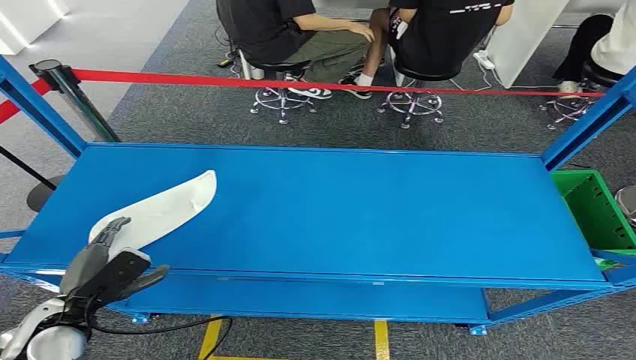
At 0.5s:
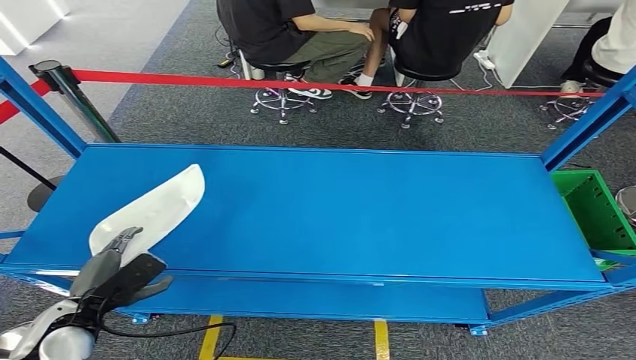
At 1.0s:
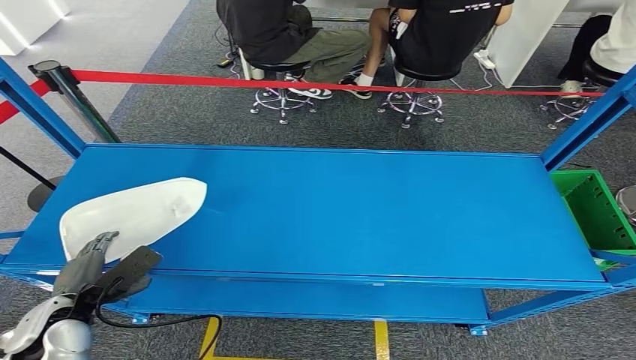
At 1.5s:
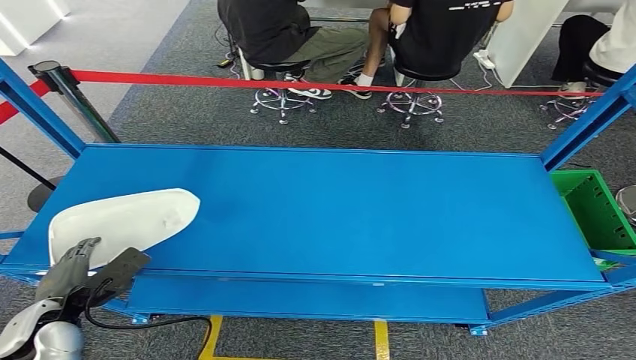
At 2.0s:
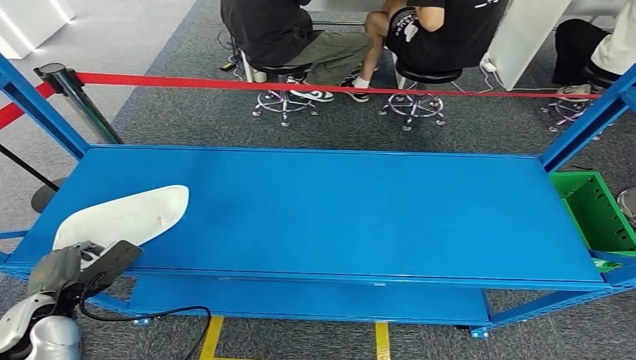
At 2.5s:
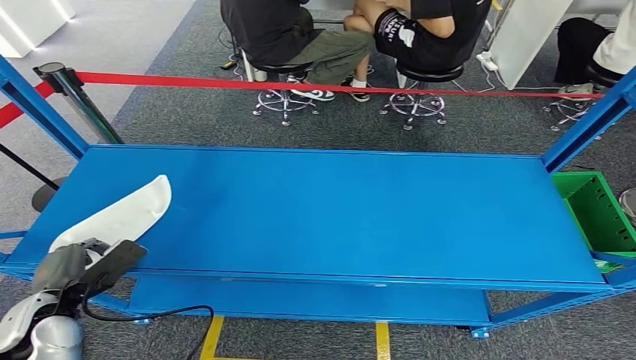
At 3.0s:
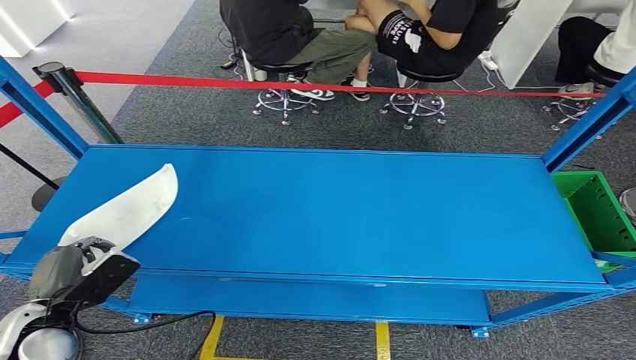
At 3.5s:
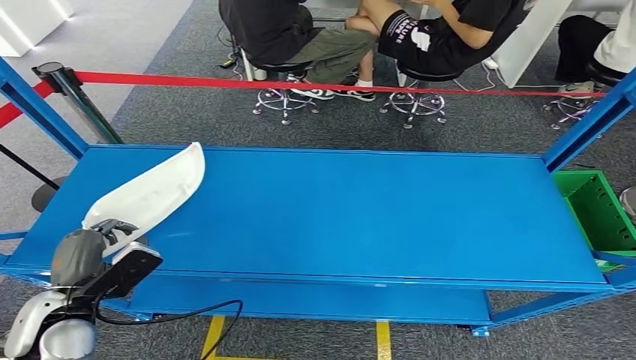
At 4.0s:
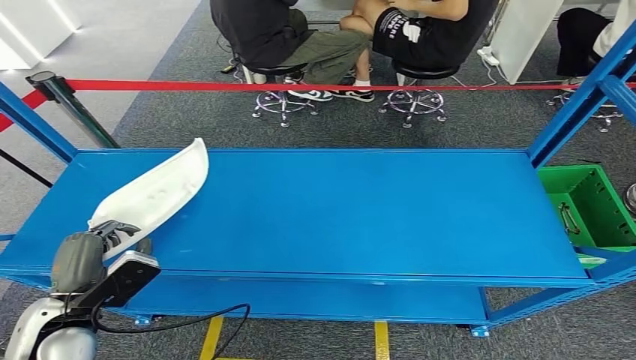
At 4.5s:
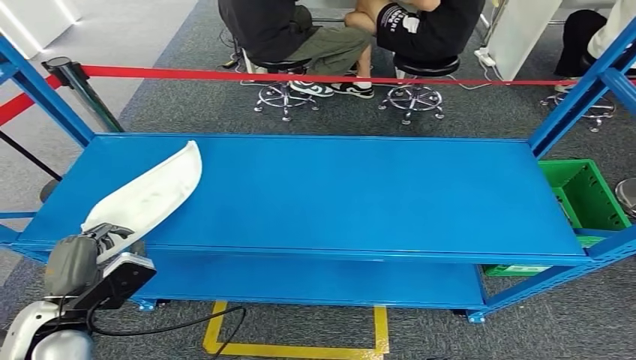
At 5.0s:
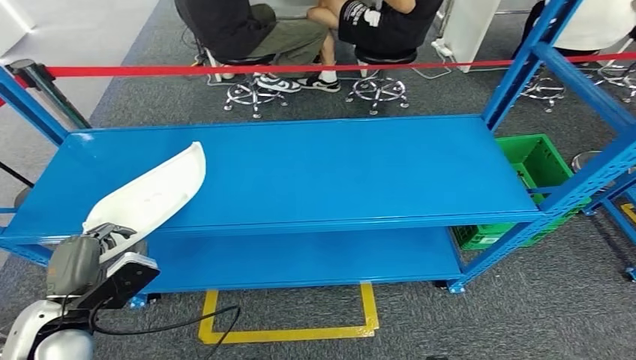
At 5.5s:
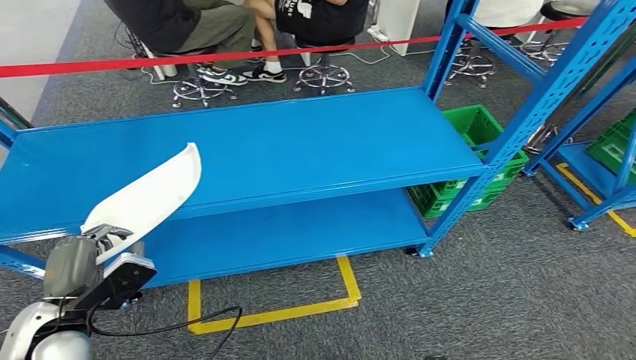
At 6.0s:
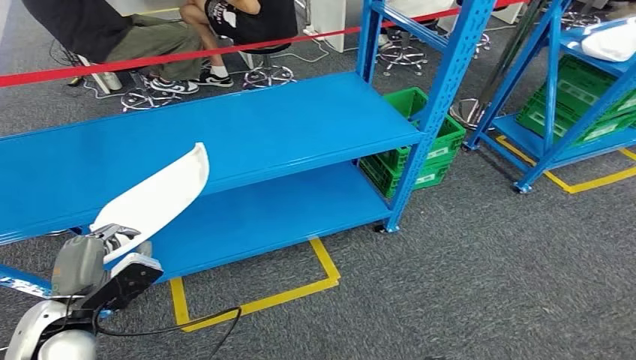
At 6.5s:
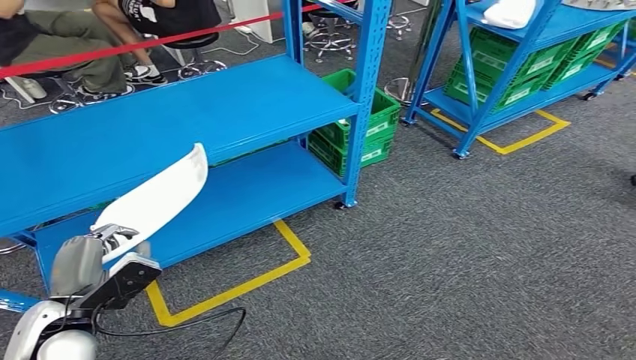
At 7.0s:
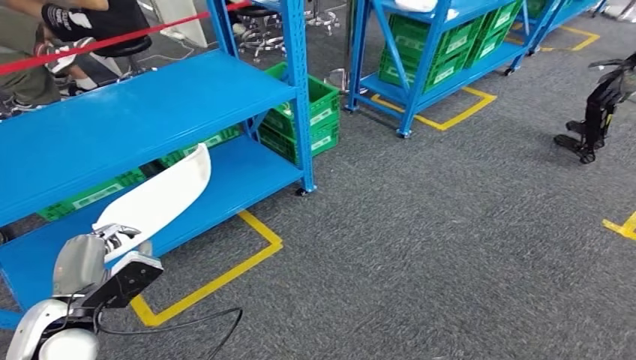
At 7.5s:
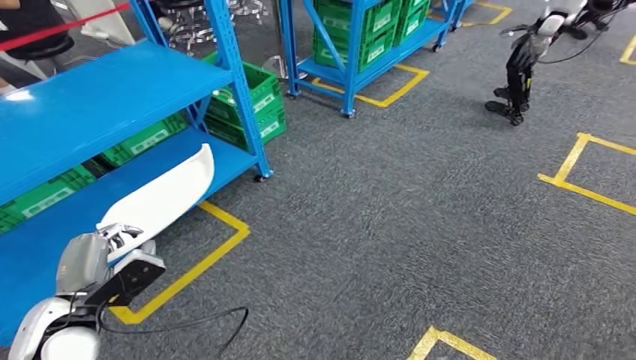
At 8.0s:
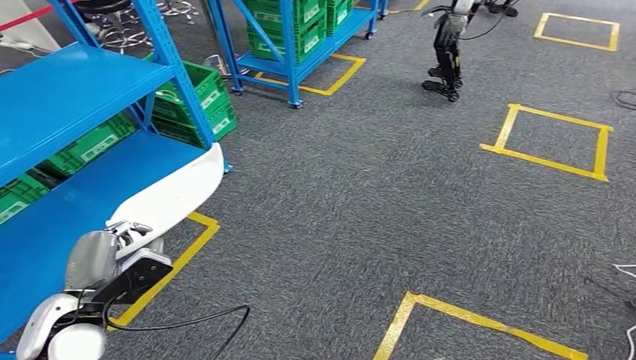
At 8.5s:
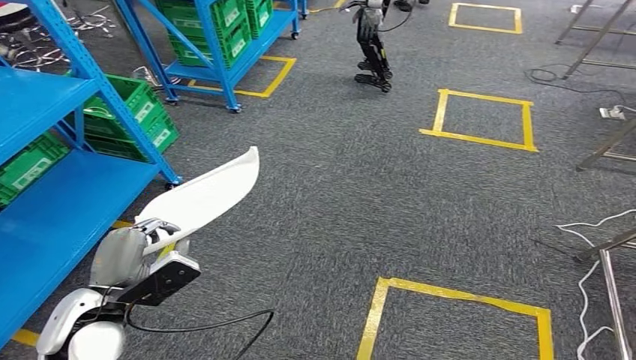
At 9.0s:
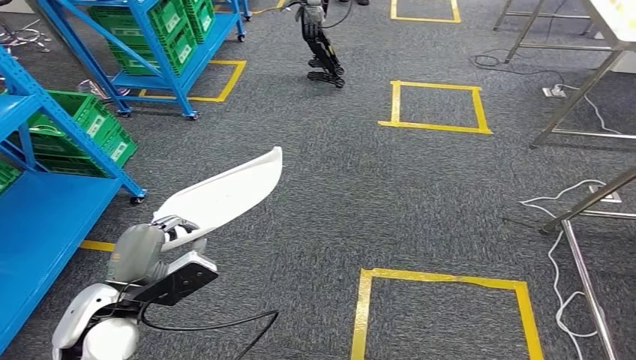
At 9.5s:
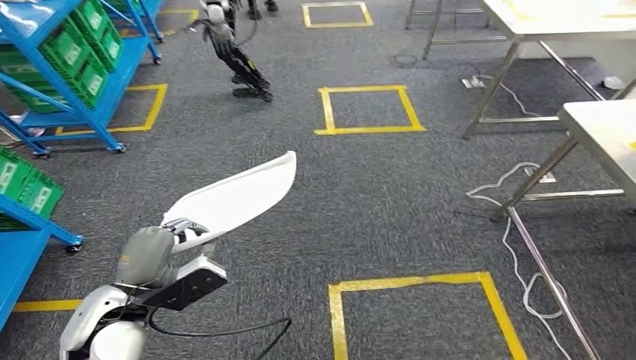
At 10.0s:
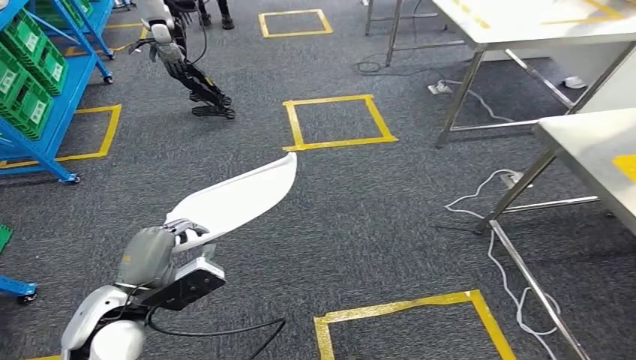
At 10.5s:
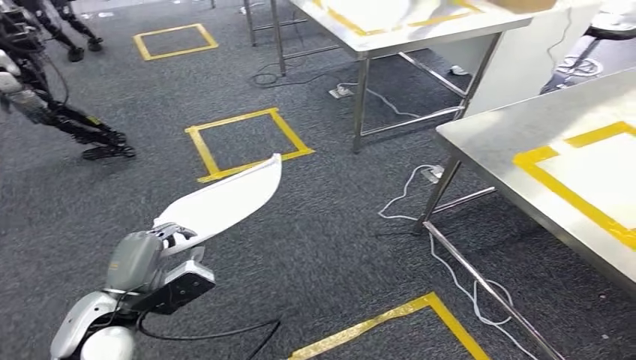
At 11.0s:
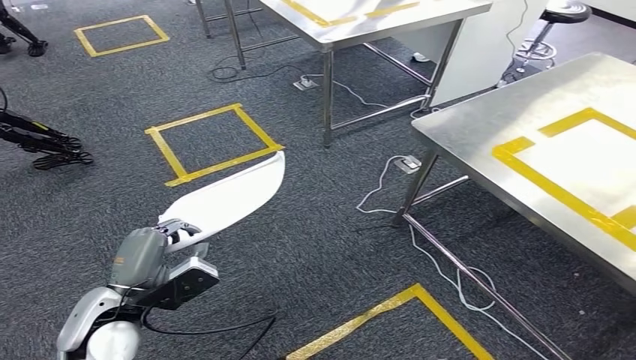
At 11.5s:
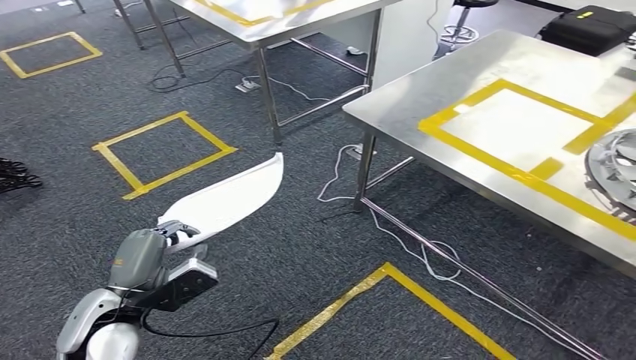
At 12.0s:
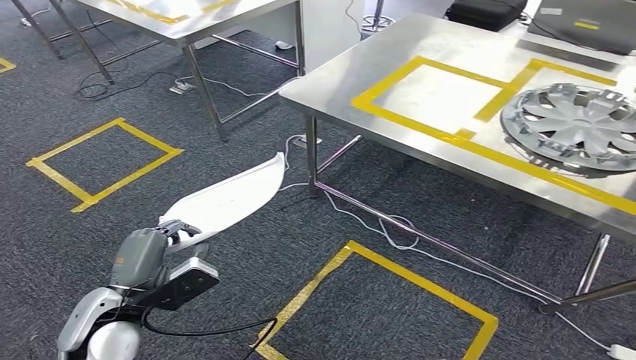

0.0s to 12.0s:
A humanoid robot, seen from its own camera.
Step, 0.0s to 5.0s: Take small components from the rack.

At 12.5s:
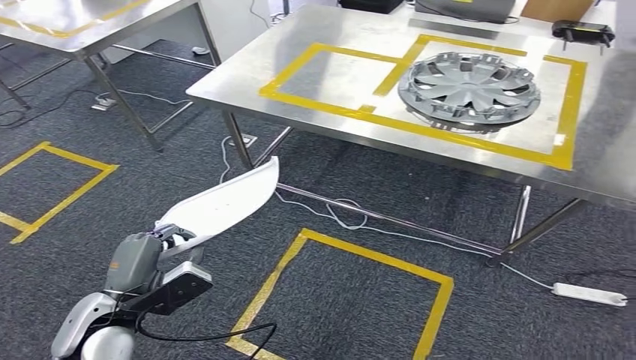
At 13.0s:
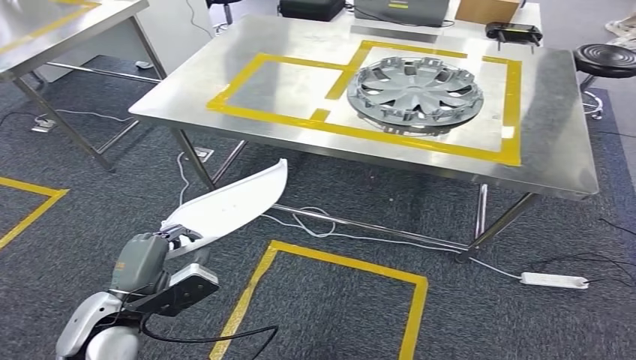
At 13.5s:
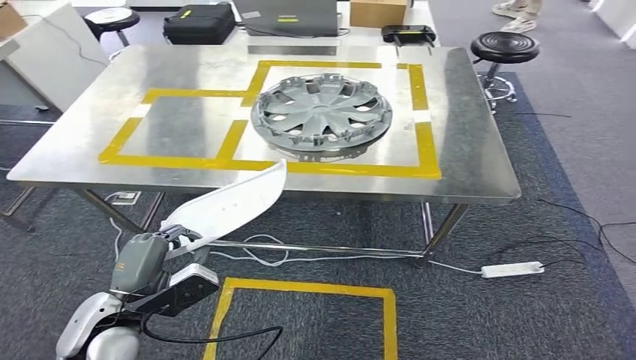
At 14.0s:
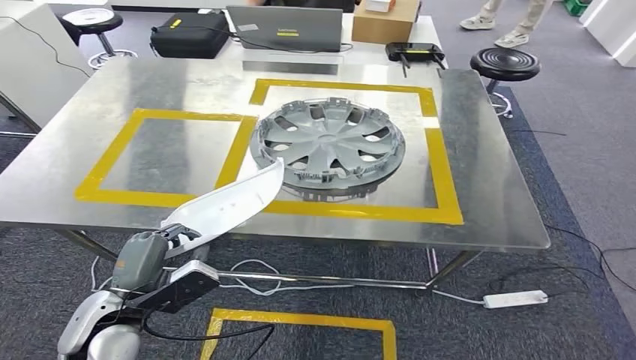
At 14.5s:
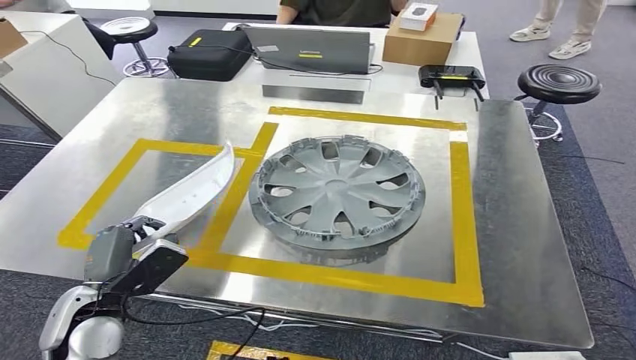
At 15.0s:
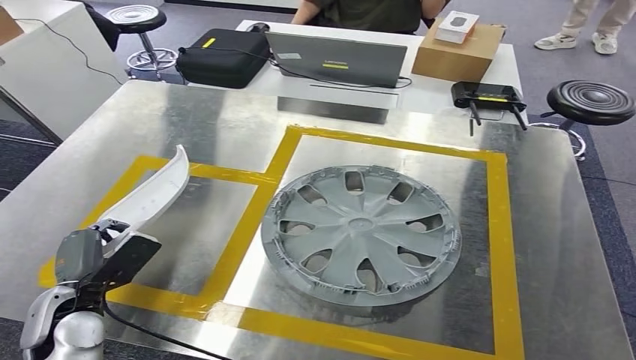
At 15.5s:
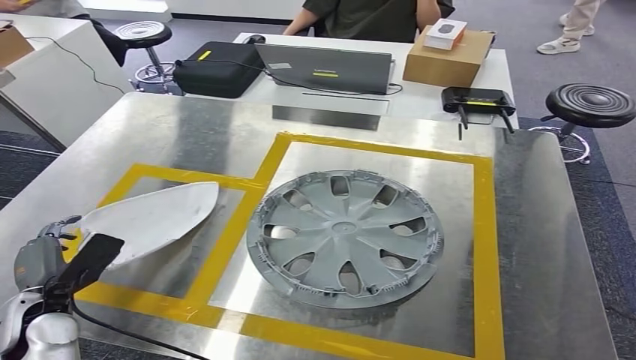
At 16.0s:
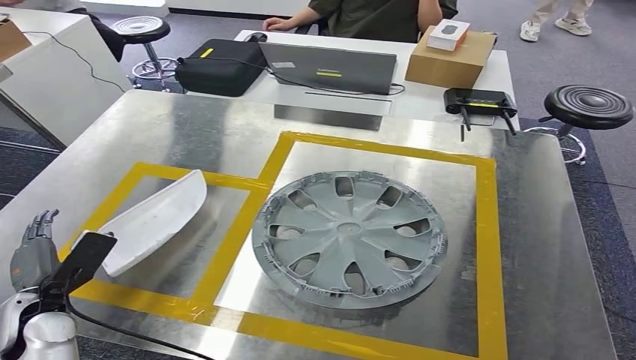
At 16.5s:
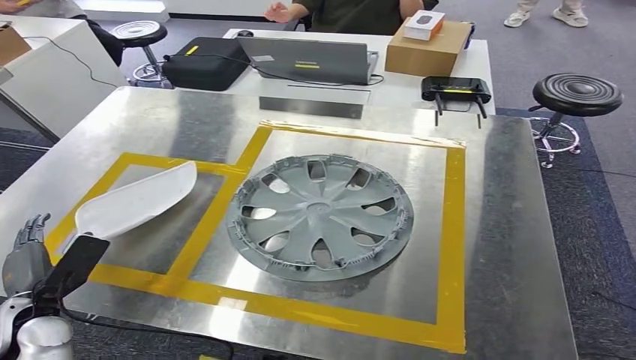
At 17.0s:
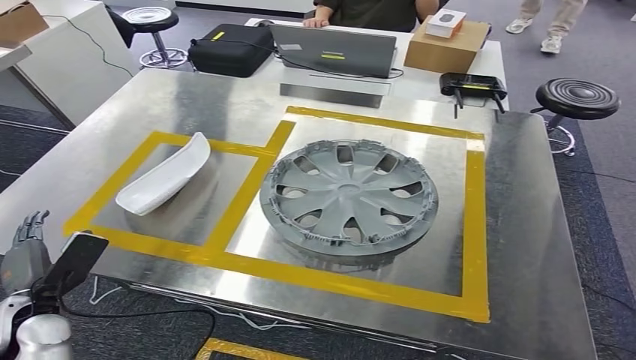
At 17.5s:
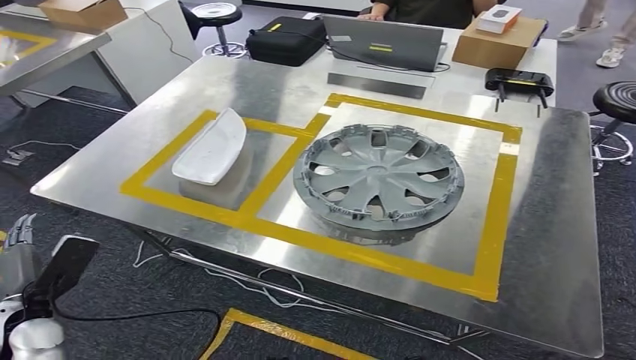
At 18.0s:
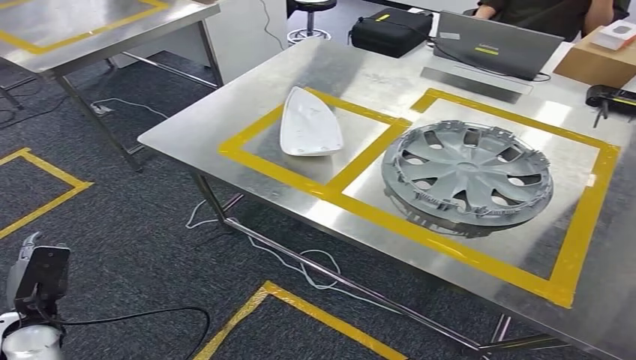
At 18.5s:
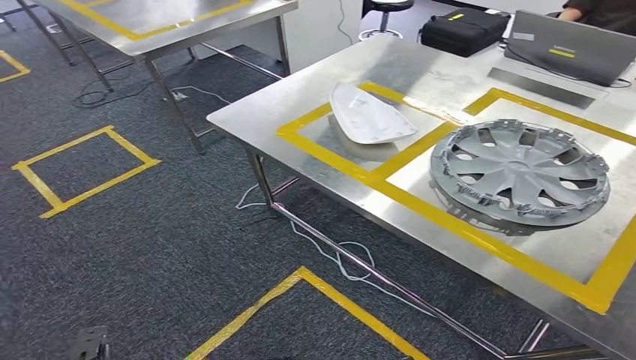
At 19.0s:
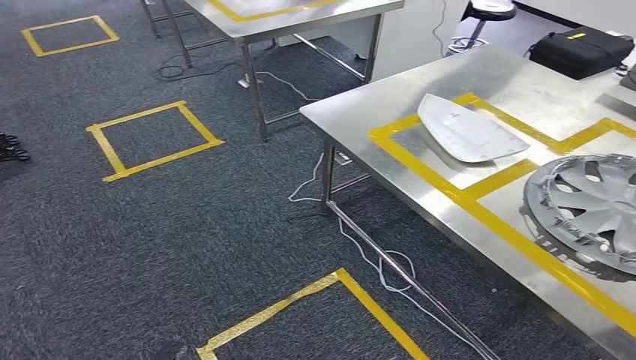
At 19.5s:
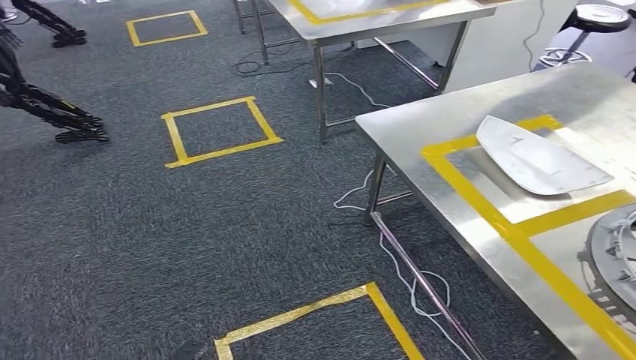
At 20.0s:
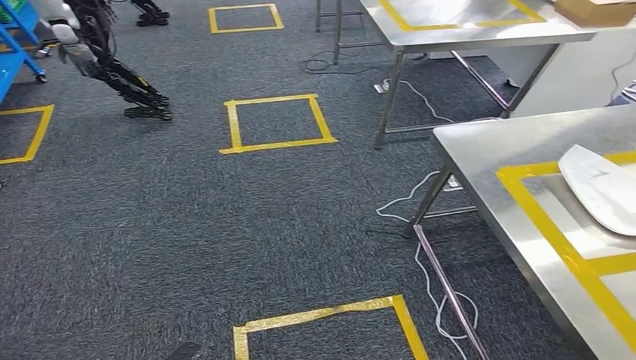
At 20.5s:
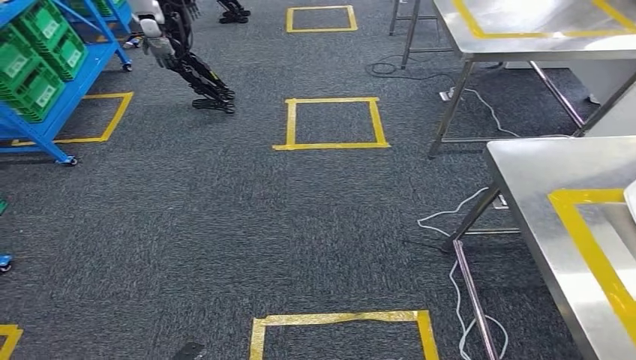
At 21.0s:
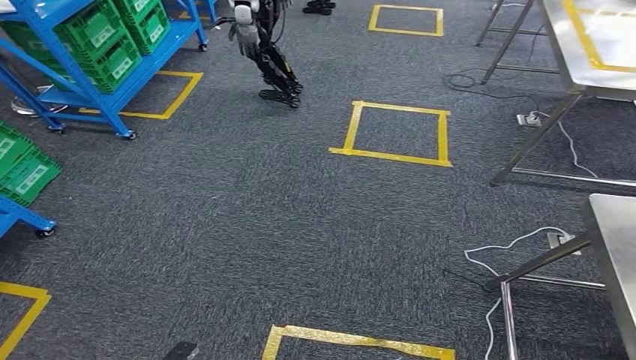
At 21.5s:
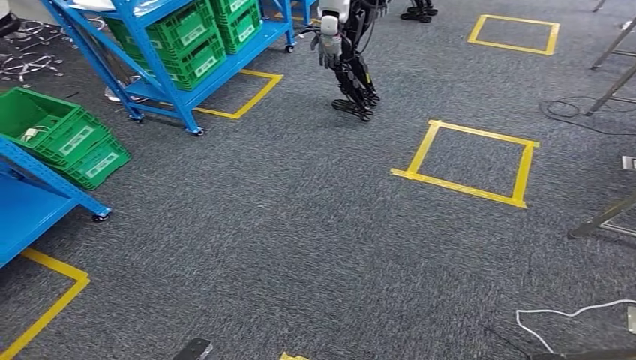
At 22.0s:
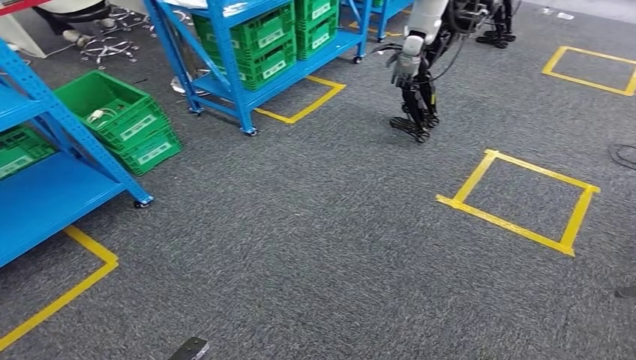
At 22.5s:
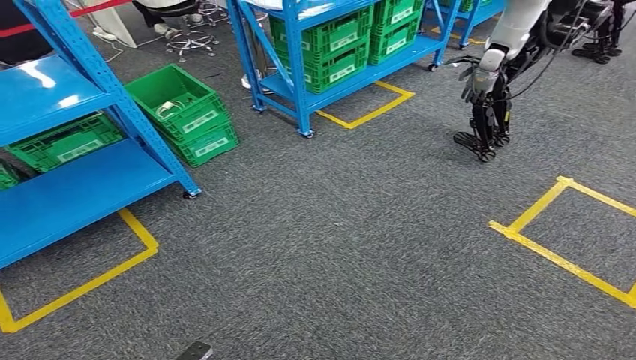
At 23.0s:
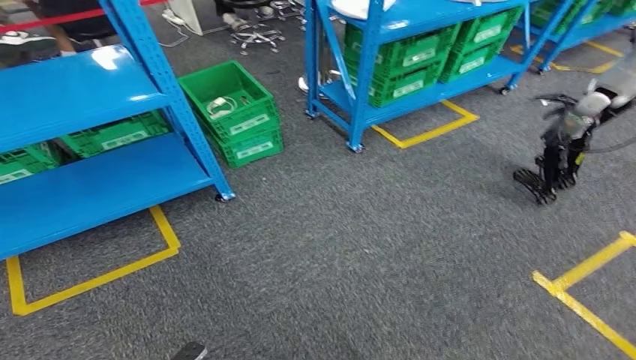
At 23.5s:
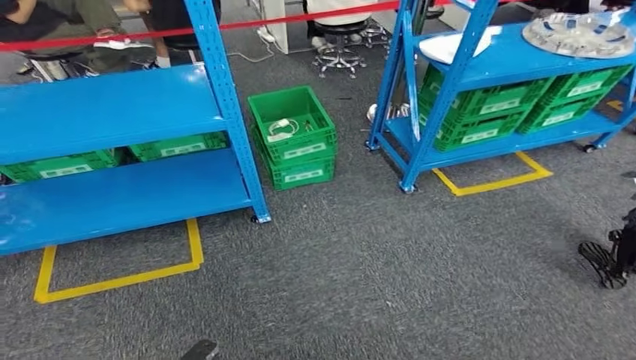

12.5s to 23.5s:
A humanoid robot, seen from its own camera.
Step, 12.5s to 15.0s: Move the small parts to the workbench.
Step, 15.5s to 18.0s: Insert the small parts into the corresponding holes on the workbench.
